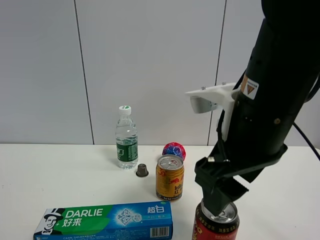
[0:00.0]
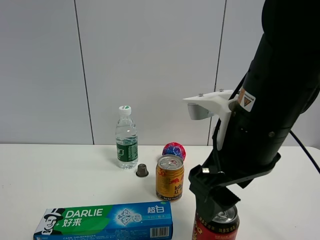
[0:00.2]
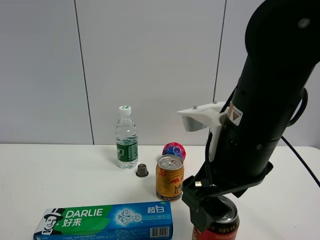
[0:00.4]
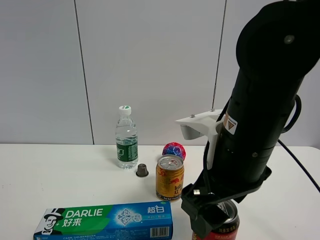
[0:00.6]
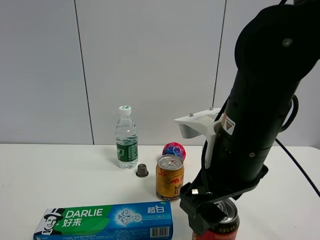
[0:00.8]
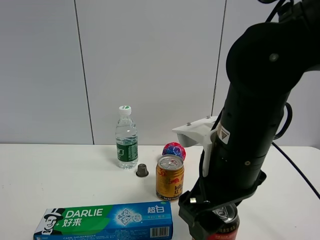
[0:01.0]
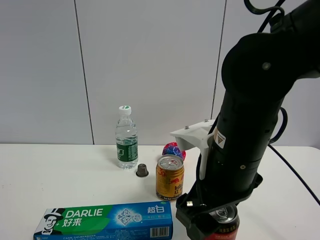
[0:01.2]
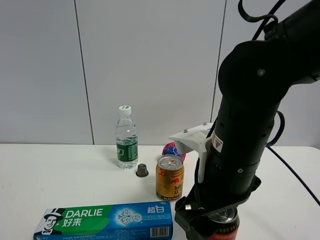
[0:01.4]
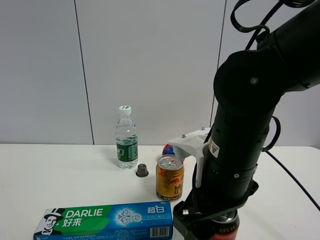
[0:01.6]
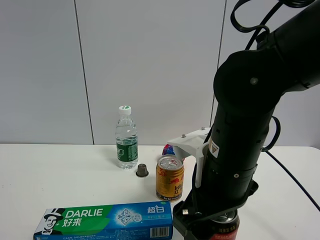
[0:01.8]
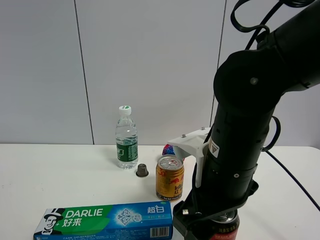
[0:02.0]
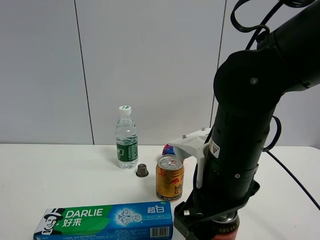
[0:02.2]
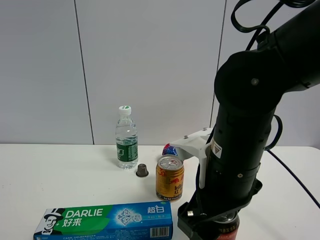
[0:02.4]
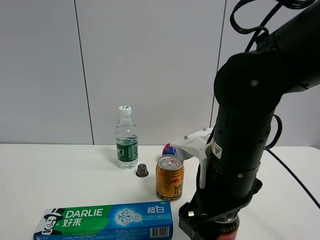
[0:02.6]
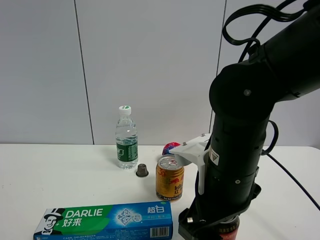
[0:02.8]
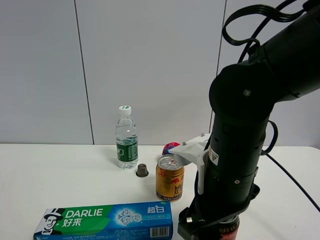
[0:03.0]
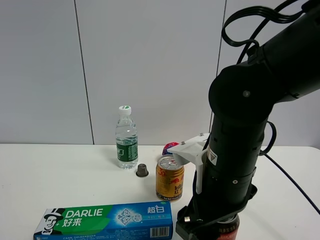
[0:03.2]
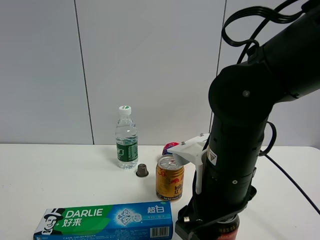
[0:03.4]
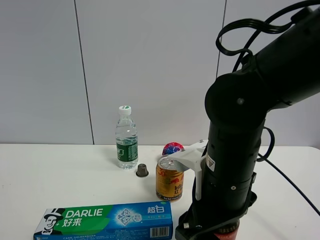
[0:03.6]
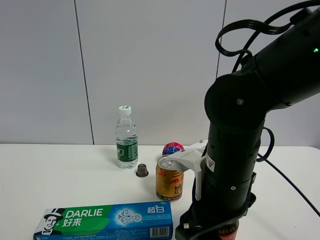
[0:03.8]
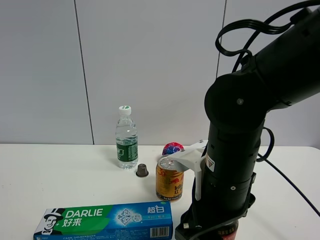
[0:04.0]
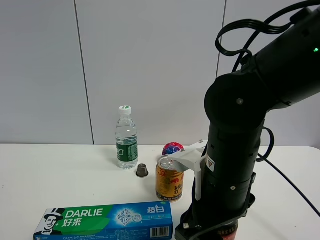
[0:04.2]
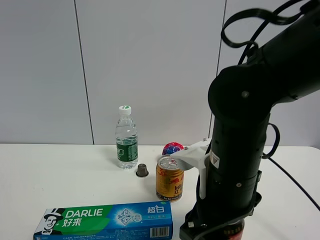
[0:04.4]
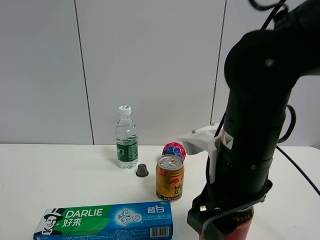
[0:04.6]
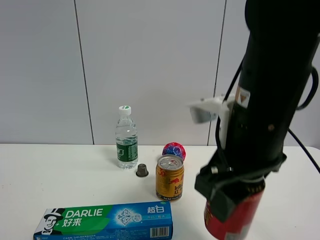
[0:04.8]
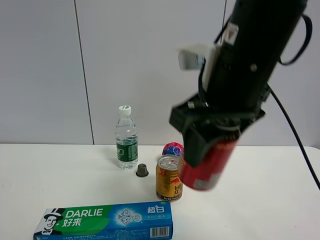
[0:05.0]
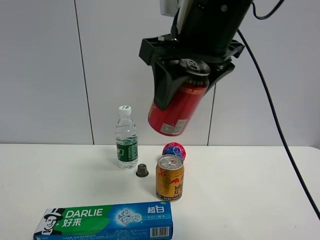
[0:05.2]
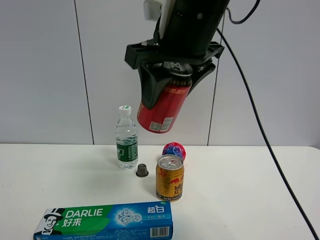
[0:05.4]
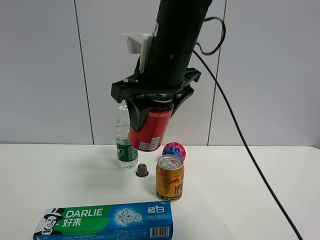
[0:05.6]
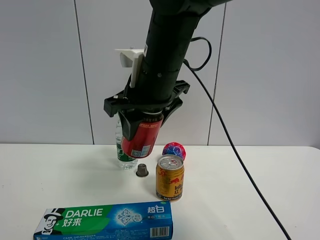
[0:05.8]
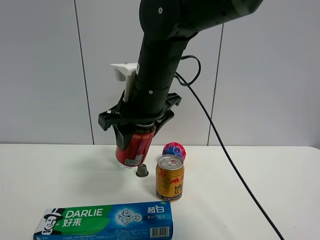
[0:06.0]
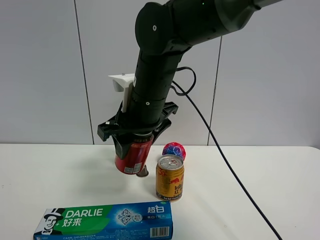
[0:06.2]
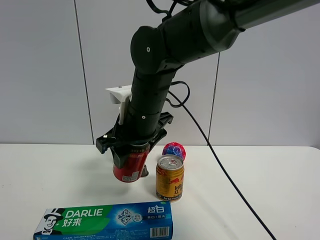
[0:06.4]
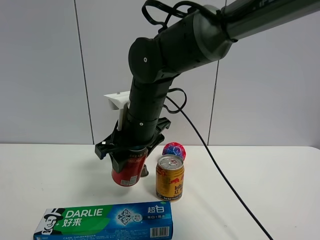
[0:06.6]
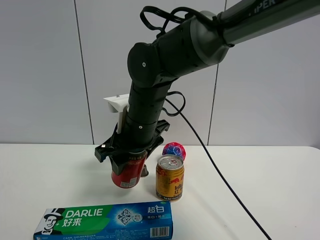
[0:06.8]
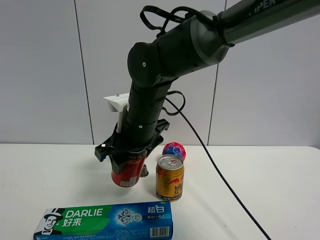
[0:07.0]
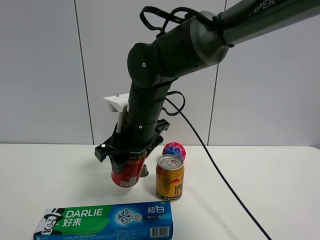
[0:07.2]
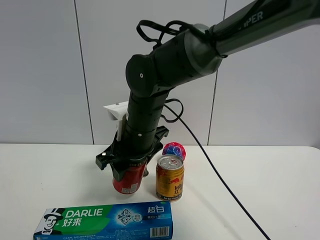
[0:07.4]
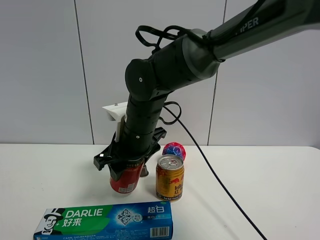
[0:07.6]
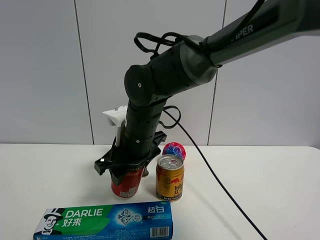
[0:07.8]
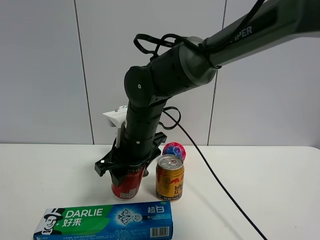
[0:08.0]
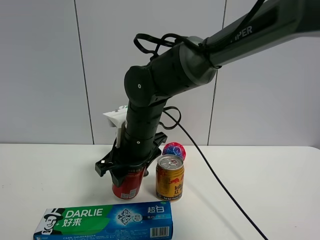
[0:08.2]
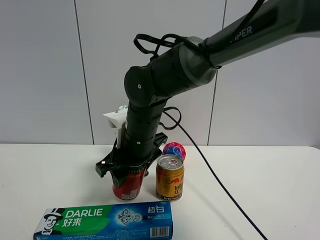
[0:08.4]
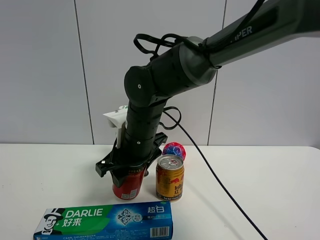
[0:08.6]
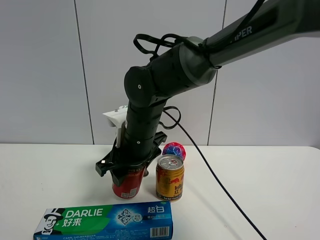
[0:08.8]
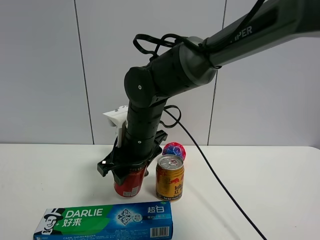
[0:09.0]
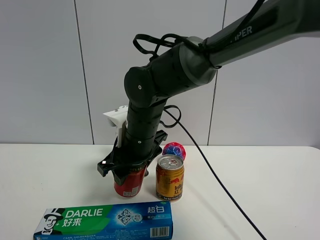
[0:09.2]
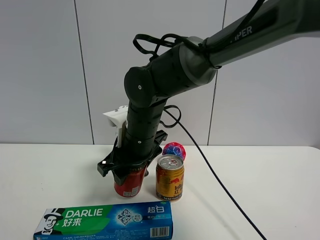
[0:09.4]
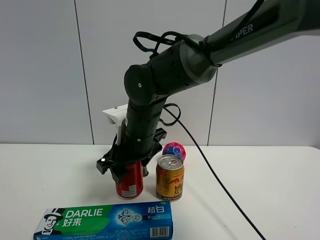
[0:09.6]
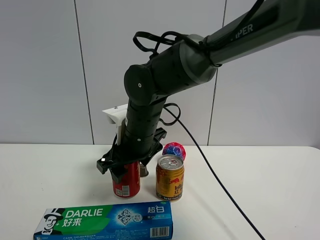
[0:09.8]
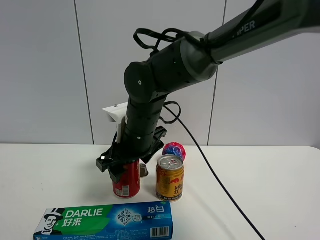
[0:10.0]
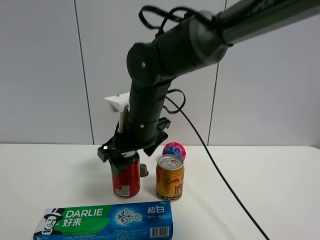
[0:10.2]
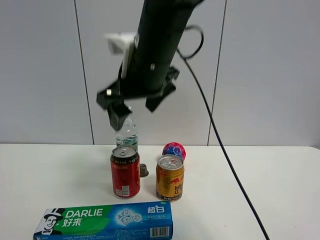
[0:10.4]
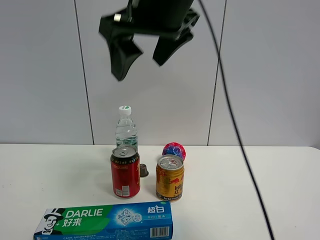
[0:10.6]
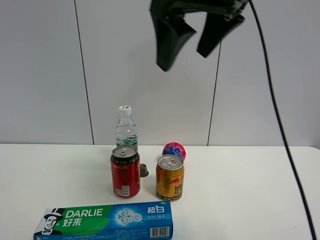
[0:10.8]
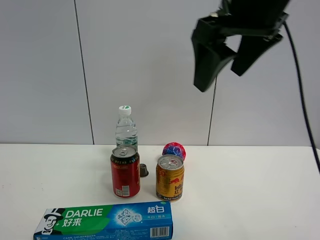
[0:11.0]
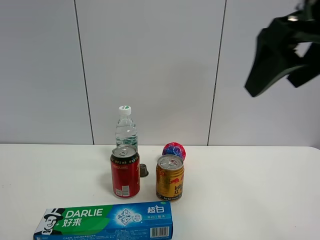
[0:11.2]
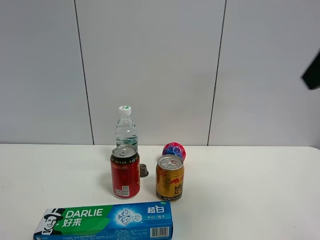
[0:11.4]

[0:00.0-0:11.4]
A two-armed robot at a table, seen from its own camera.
Task of the whole recording: the gripper move the object.
Step, 0:00.0 to 0:04.2: Grasp the Jia Duo Bao with the right gripper.
Step, 0:04.4 to 0:10.2: Place the Jia Duo Bao on the table with the right gripper.
0:00.0 to 0:01.4: The right gripper is displaced downward by about 5 cm.
0:01.4 to 0:02.8: The grippers stay close to where they were, moving slightly.
0:02.8 to 0:04.2: The right gripper closes up.
0:04.2 to 0:05.6: The right gripper travels upward, forward and to the left by approximately 20 cm.
0:05.6 to 0:07.2: The right gripper heads downward, covering some 10 cm.
0:07.2 to 0:08.6: There are only small adjustments of the grippers.
0:08.6 to 0:10.0: The right gripper opens its fingers.
0:10.0 to 0:11.4: The right gripper shifts approximately 40 cm to the right, upward and backward.

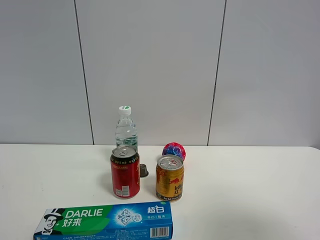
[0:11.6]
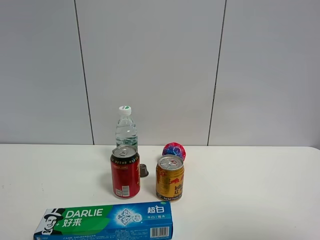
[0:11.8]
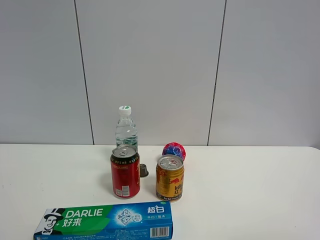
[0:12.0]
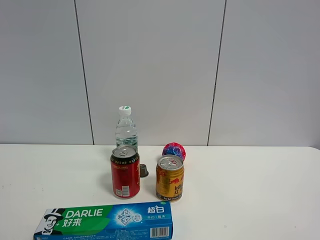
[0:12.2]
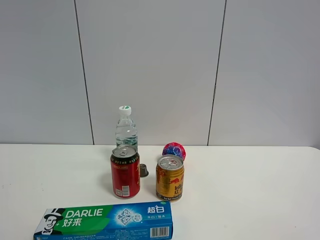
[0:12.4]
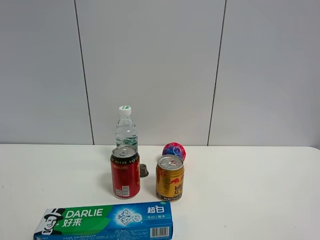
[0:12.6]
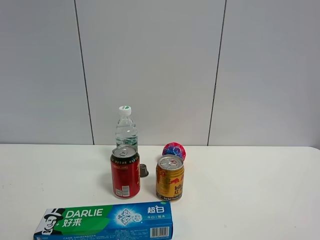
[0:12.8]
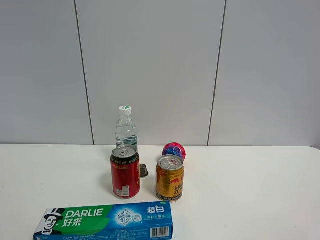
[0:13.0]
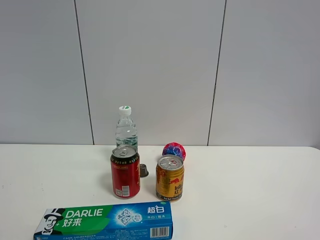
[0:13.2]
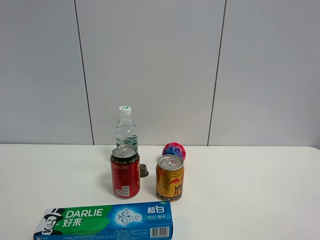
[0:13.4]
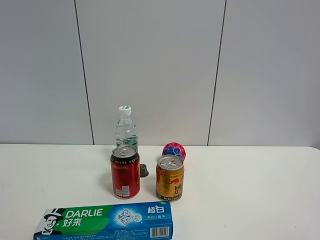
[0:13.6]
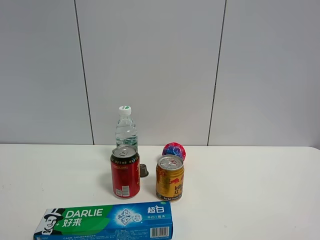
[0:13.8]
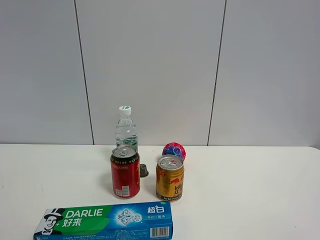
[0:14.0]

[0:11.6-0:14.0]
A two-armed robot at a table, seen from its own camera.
Task of the whole recording: the gripper move the object.
0:11.6 to 0:12.8: The right gripper goes about 10 cm backward and downward.
0:12.8 to 0:14.0: Both grippers stay put.

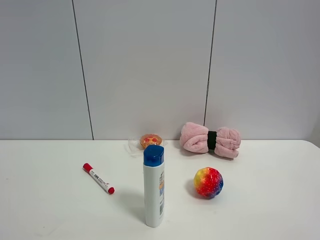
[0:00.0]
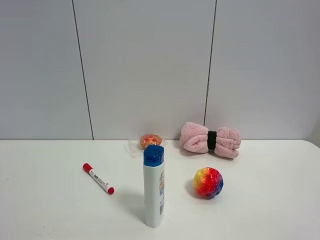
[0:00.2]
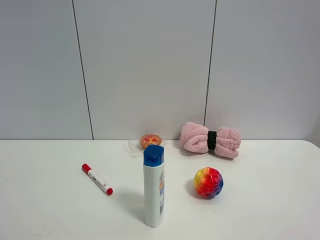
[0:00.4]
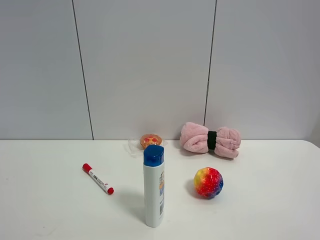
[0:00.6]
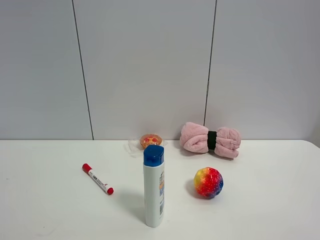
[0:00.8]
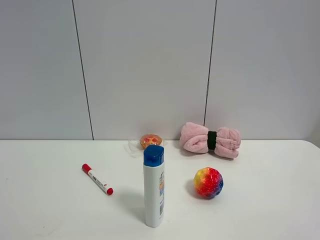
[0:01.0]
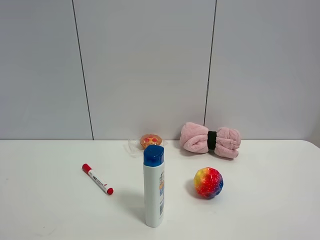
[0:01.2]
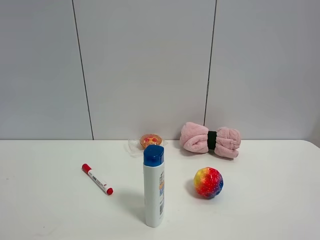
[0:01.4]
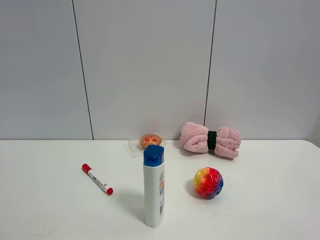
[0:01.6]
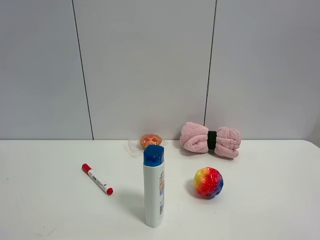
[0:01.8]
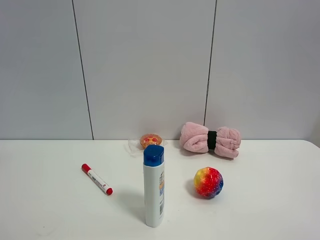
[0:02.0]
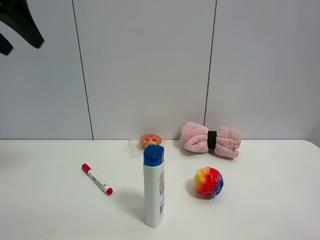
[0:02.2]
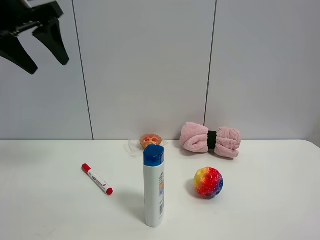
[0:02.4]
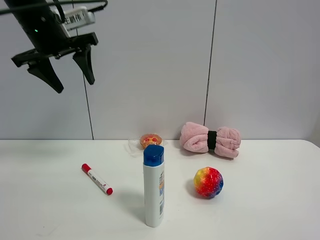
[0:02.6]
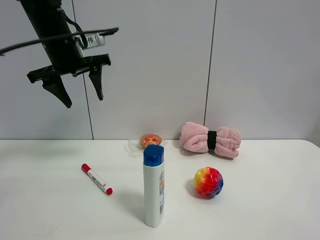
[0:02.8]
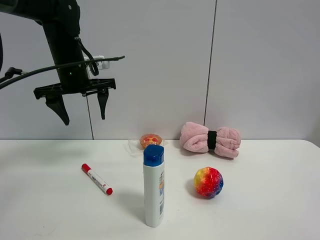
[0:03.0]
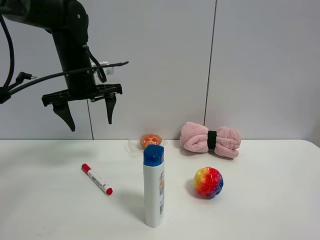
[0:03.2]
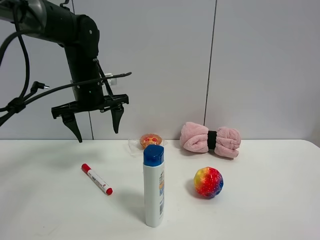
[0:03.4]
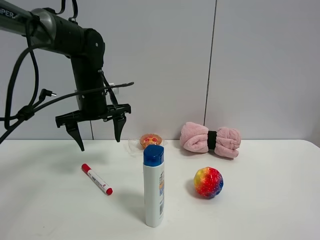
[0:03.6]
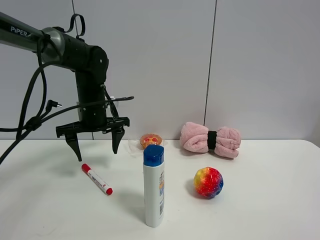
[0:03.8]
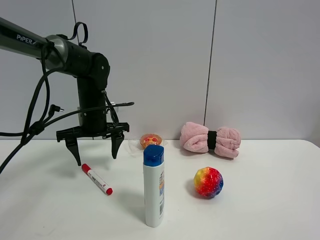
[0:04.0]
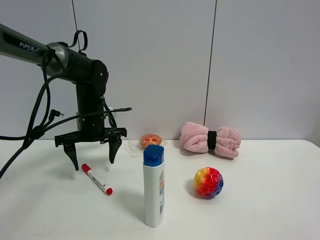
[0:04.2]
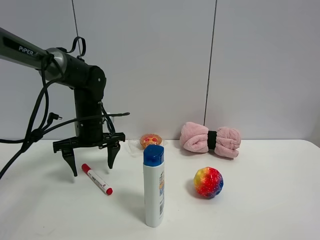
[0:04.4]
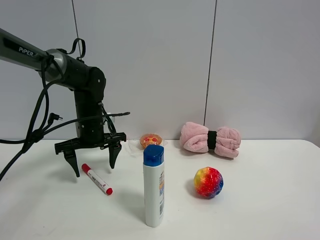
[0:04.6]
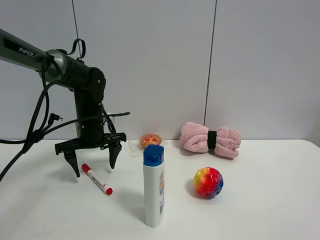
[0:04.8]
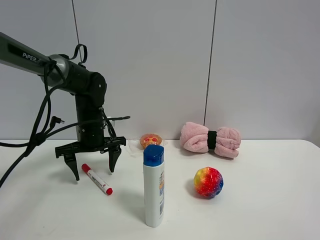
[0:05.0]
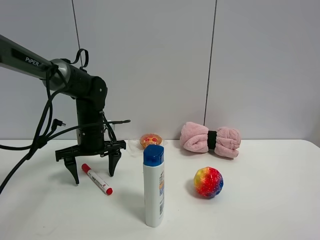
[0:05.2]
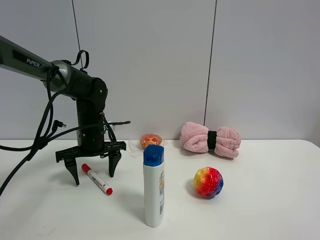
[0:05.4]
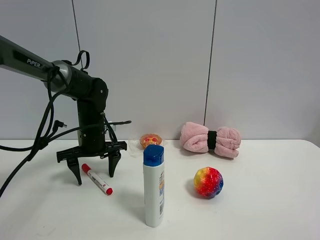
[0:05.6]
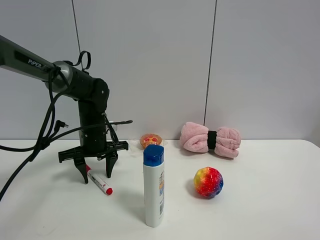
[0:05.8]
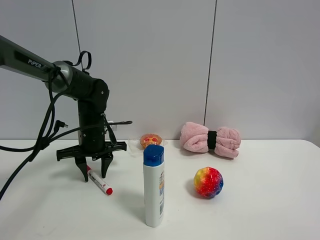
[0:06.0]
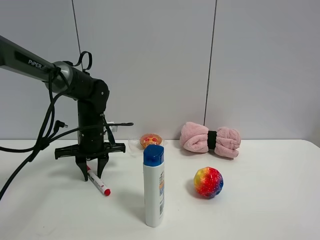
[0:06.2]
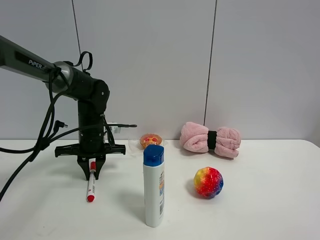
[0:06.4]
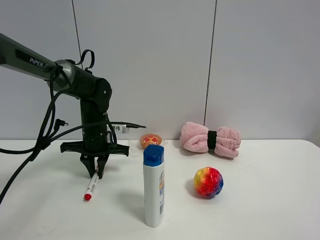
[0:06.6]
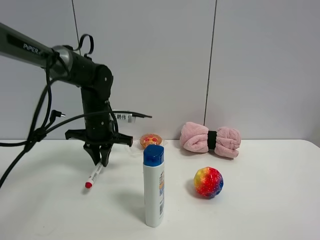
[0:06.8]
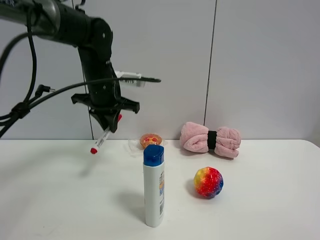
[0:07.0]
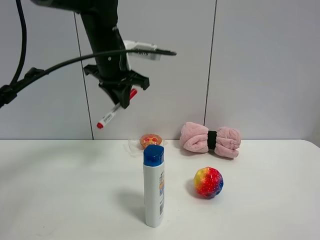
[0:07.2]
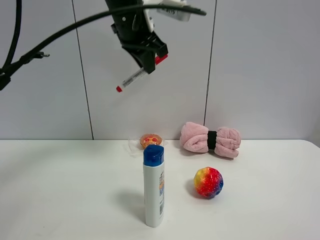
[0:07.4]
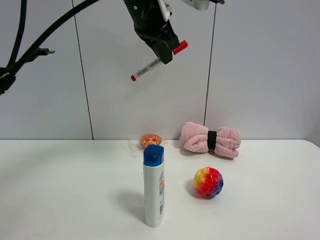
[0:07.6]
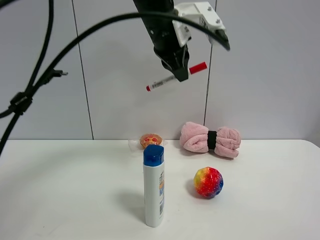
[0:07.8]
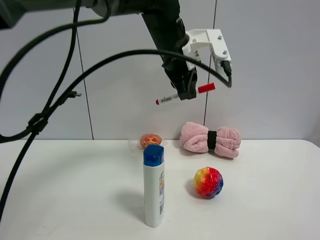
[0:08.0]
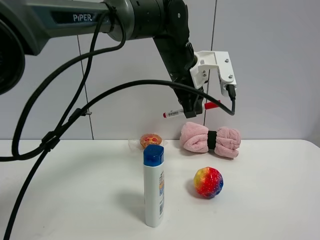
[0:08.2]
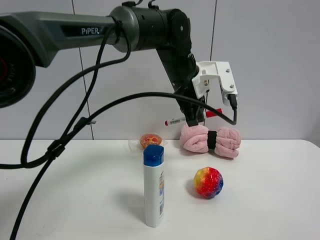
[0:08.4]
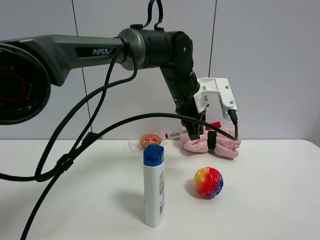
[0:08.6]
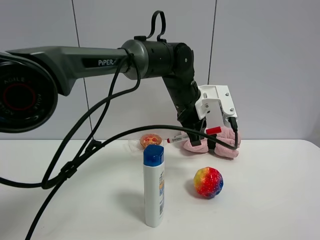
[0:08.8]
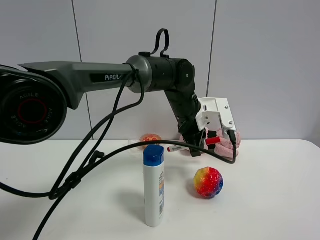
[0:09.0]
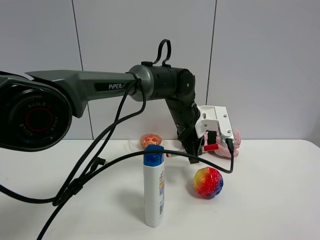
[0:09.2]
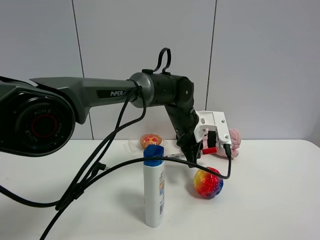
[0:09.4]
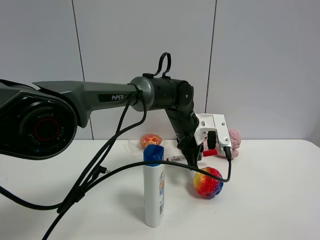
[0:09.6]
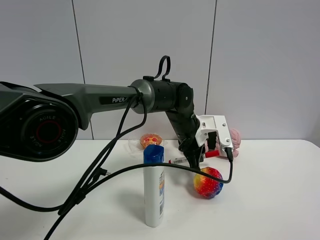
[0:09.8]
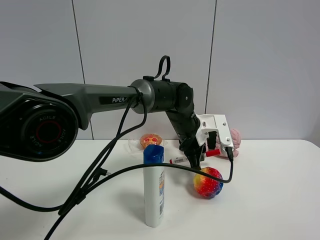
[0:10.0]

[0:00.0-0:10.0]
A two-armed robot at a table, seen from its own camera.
Task of the whole recording: the gripper move the object.
Step, 0:00.0 to 0:06.2: Grasp the red marker pen with the left gripper.
0:01.4 to 0:02.8: The left gripper heads forward and downward, covering roughly 40 cm.
0:02.8 to 0:04.2: The left gripper travels downward by some 15 cm.
0:04.2 to 0:05.8: The left gripper closes its fingers.
0:05.8 to 0:07.2: The left gripper is displaced upward by some 20 cm, and closes up.
0:07.2 to 0:08.6: The left gripper heads to the right and downward, covering approximately 15 cm.
0:08.6 to 0:10.0: The left gripper travels downward by approximately 10 cm.
